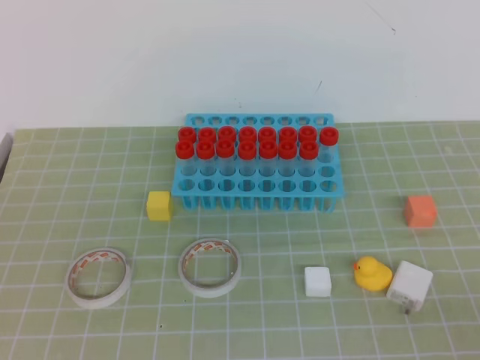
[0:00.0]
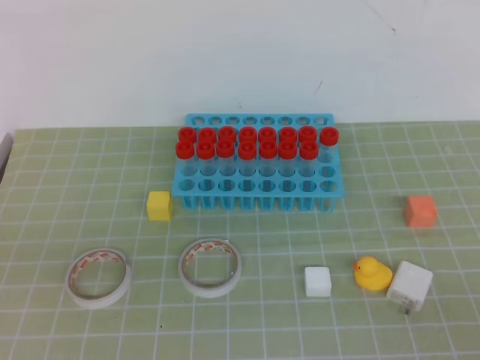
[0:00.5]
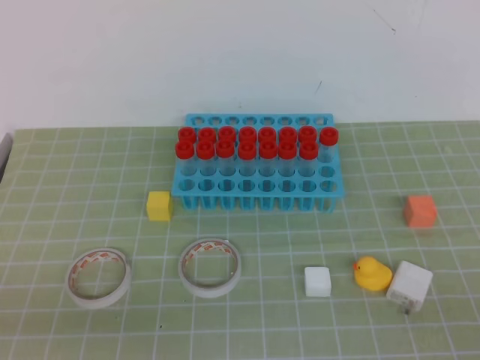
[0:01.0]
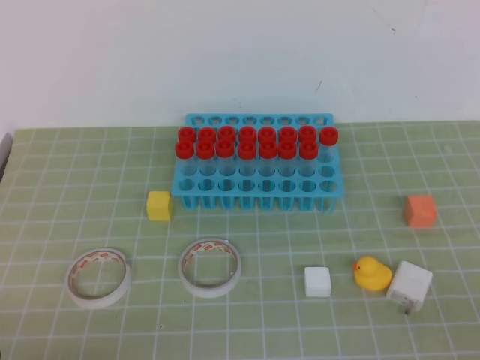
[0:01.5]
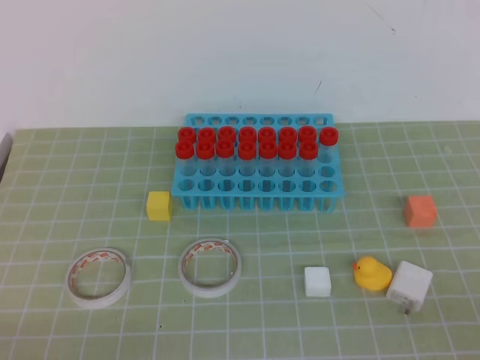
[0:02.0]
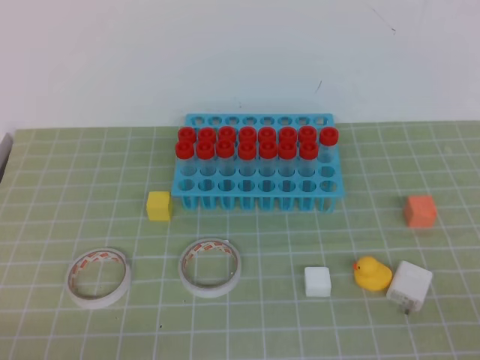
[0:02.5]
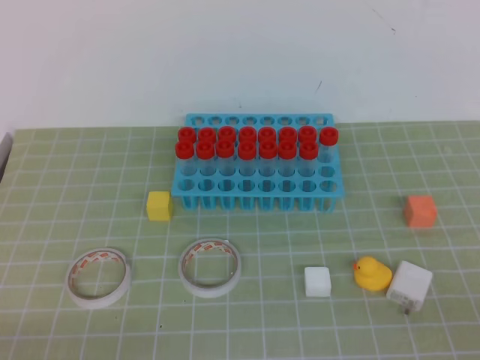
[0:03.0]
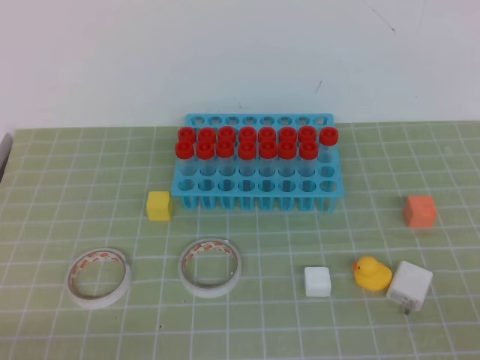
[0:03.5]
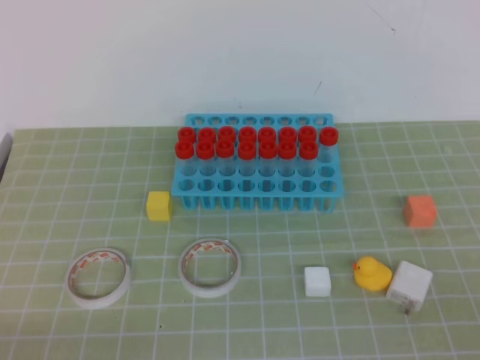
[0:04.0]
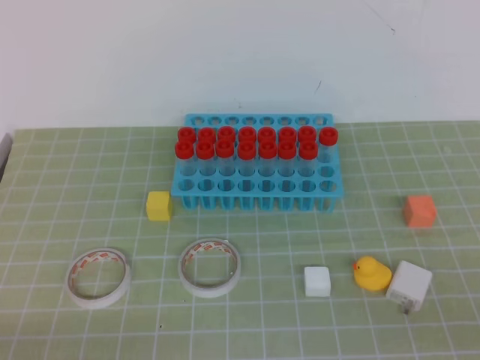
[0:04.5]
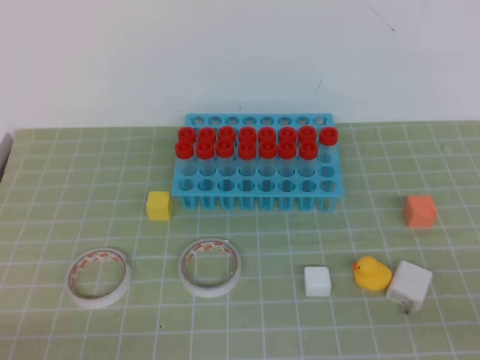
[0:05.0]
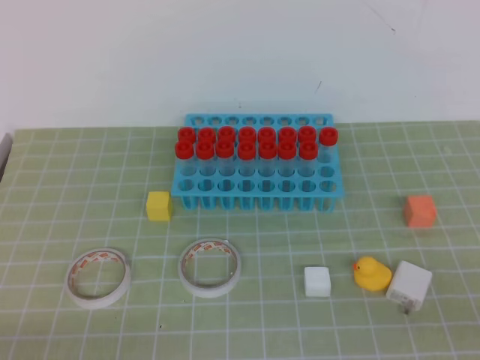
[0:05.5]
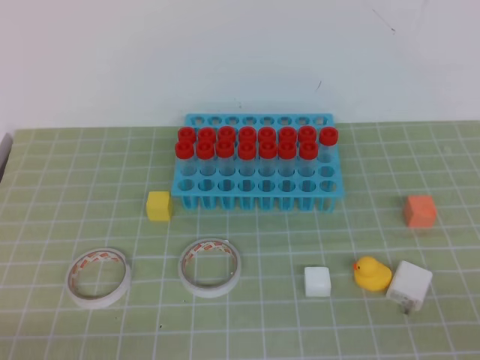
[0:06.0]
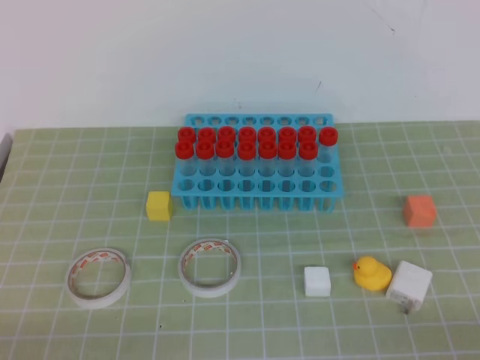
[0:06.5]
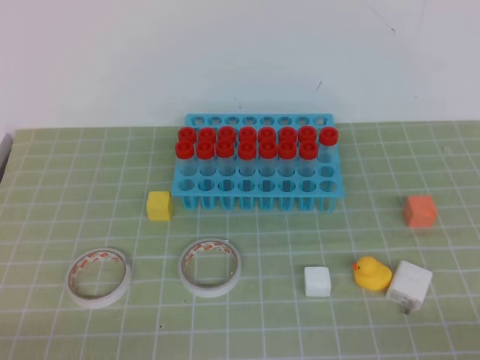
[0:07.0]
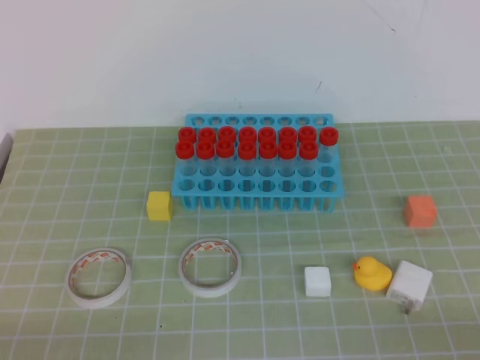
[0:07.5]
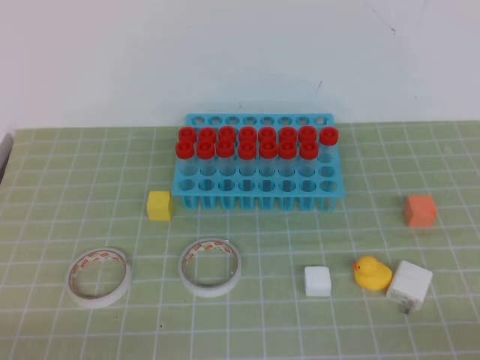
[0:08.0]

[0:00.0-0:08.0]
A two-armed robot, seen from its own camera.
0:00.0 to 0:02.0: The left gripper is displaced downward by about 20 cm.
